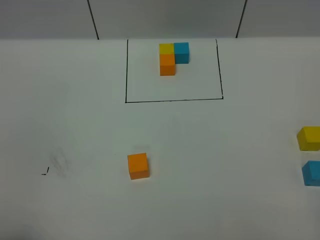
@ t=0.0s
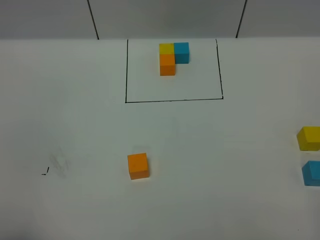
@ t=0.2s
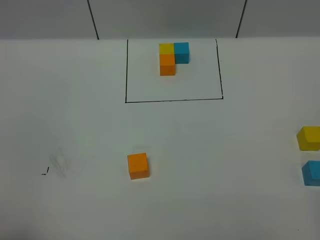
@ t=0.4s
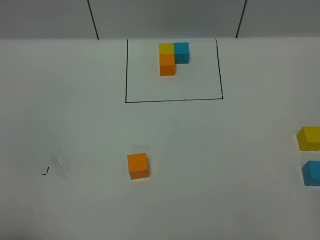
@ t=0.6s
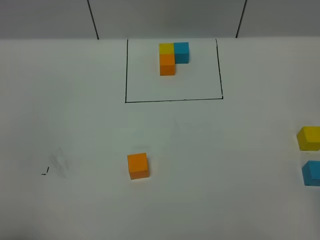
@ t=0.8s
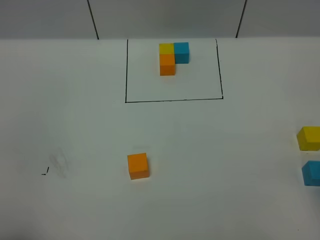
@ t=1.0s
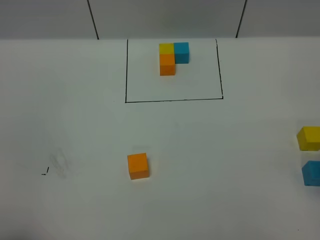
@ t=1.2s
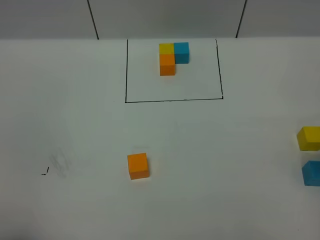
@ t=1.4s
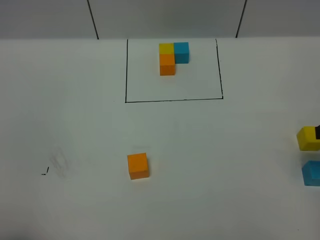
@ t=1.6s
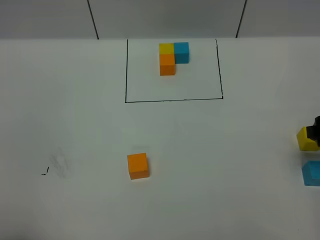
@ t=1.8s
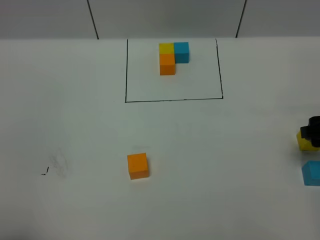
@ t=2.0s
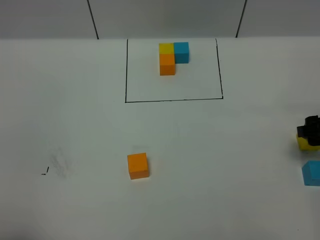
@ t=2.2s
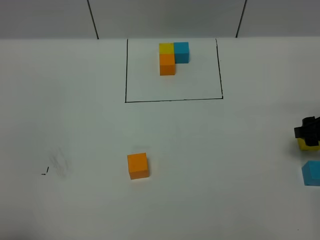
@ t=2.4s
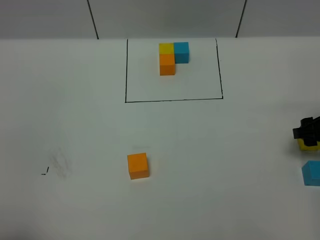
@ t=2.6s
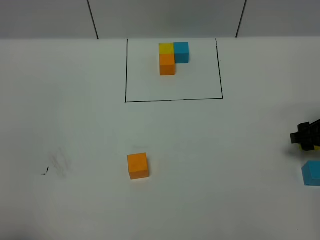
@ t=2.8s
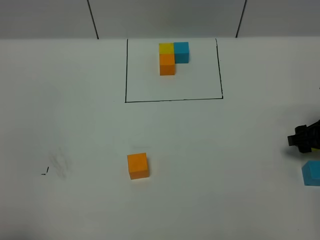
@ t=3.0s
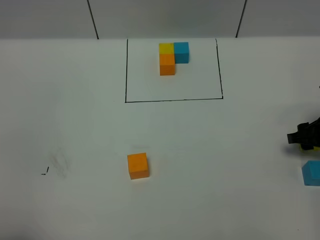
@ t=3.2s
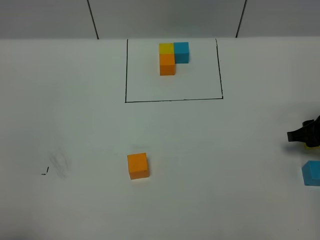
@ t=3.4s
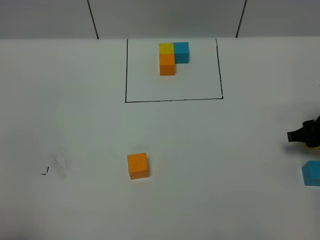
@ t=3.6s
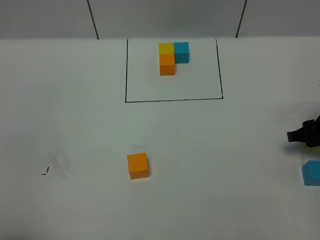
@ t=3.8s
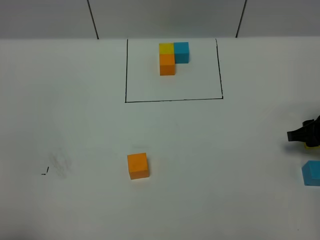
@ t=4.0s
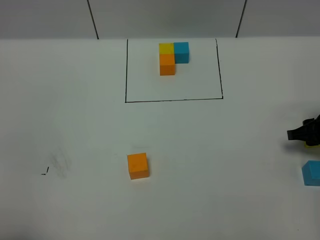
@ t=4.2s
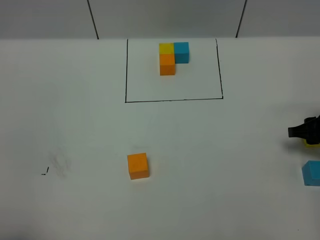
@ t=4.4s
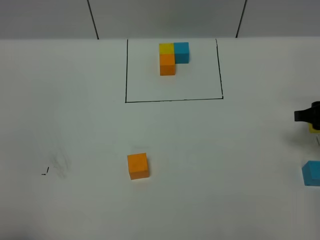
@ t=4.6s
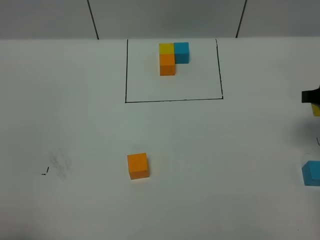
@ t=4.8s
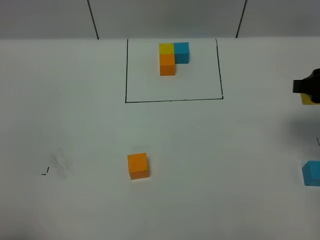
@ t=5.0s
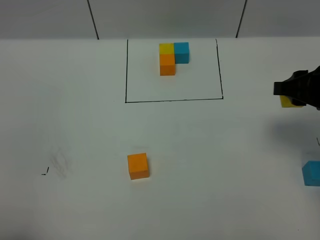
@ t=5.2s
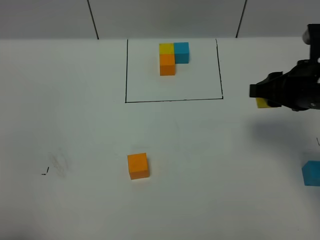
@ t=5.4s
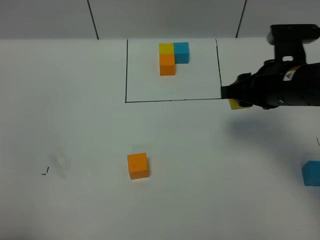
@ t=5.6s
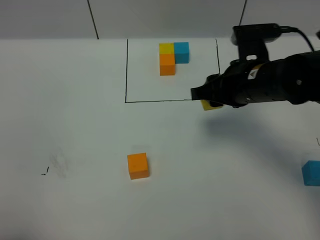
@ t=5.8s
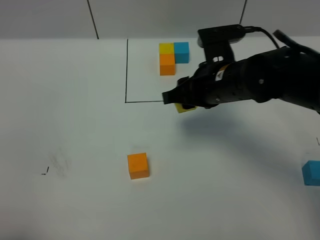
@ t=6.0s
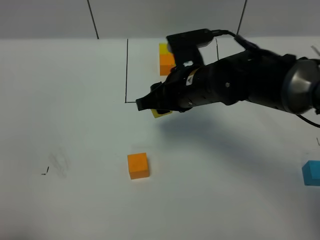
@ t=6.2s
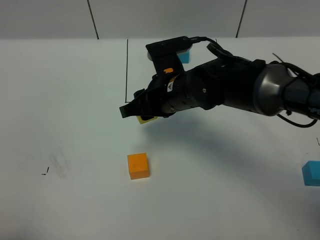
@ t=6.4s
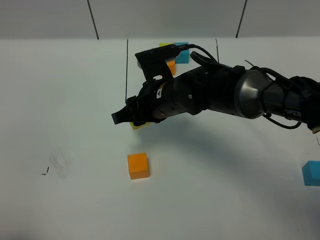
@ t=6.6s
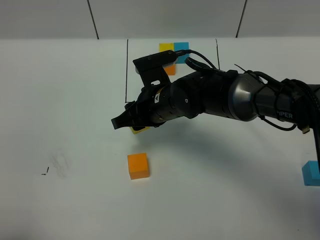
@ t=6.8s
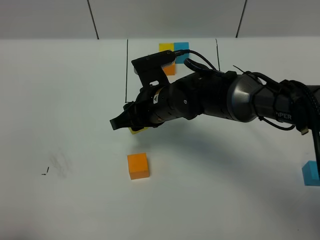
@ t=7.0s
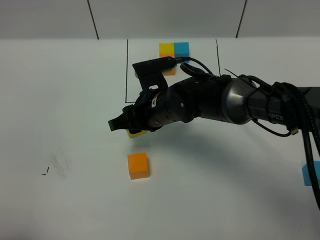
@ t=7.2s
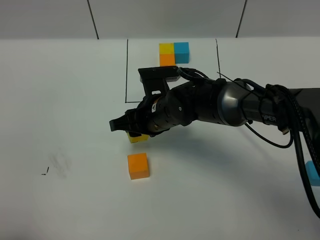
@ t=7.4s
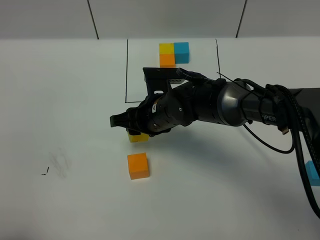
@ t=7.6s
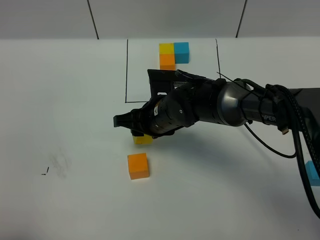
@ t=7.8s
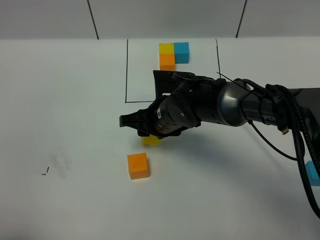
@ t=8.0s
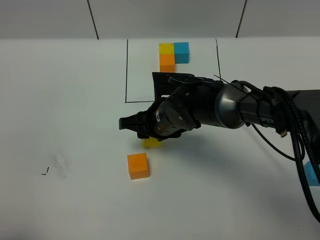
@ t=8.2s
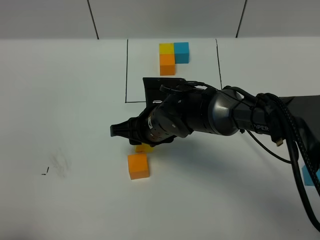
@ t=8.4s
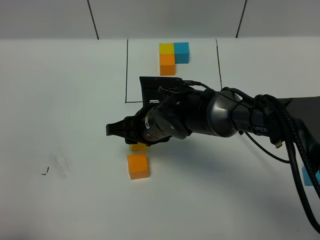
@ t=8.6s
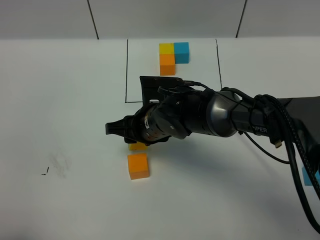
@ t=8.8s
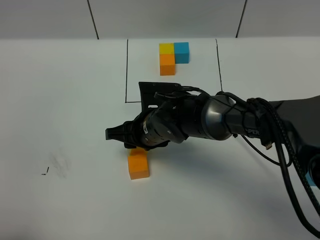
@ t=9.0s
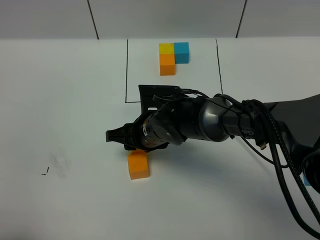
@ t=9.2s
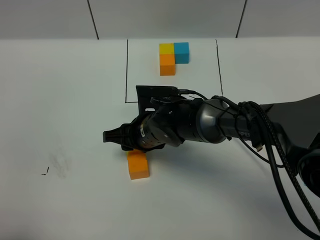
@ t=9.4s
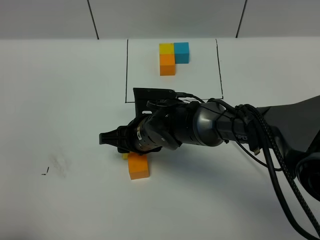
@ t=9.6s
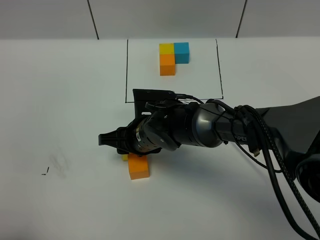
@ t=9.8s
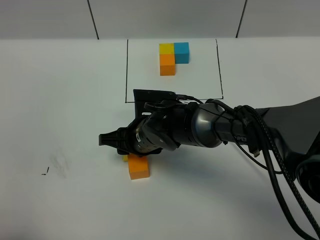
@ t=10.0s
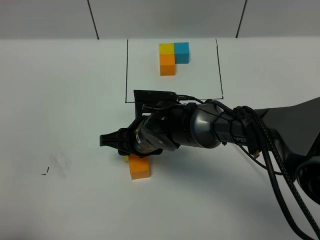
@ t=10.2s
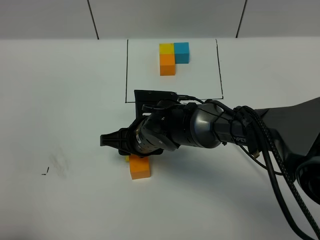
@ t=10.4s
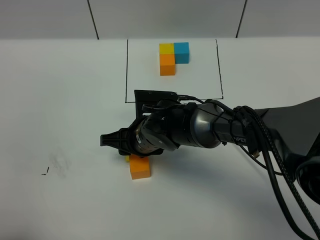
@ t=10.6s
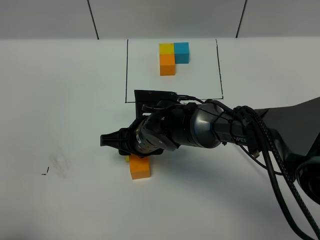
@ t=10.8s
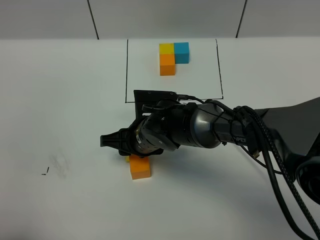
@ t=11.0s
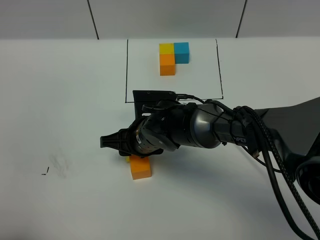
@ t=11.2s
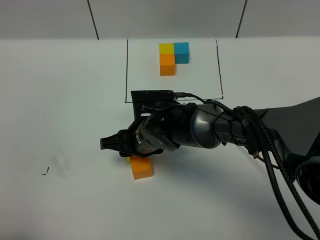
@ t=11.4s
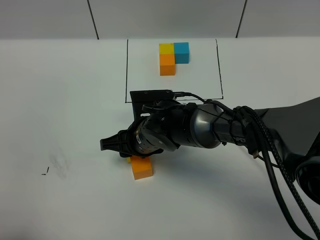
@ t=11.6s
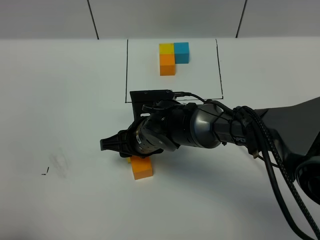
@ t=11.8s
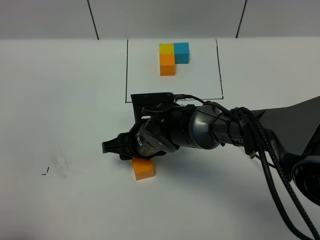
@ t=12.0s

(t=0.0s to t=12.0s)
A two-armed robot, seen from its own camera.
Task of the whole recording: According to the building block template in front, assemble the scattered blocks together.
t=1.6s - t=3.0s: The right gripper moves downward and forward, approximately 15 cm.
t=3.0s - t=4.4s: The right gripper closes up.
t=4.4s - t=6.0s: The right gripper moves to the left and upward, about 25 cm.
t=6.0s - t=7.6s: The right gripper travels to the left and downward by roughly 10 cm.
t=7.6s - t=12.0s: There are only small adjustments of the grippers.

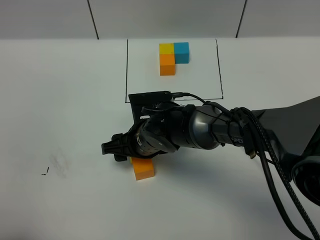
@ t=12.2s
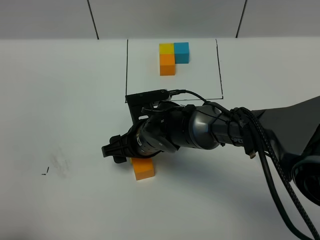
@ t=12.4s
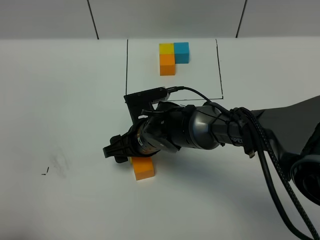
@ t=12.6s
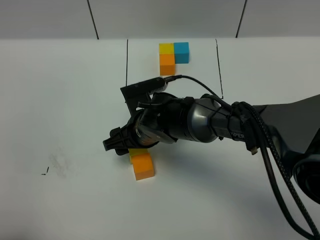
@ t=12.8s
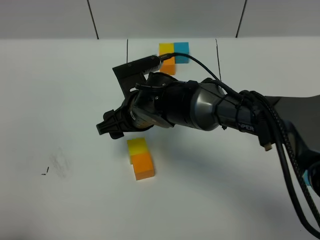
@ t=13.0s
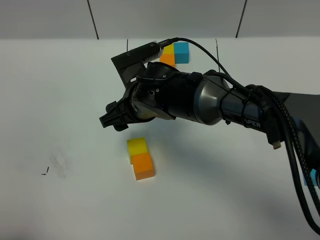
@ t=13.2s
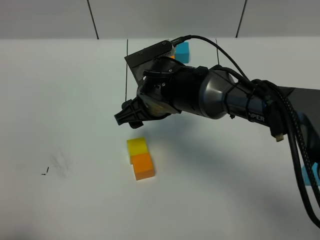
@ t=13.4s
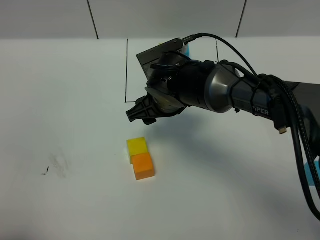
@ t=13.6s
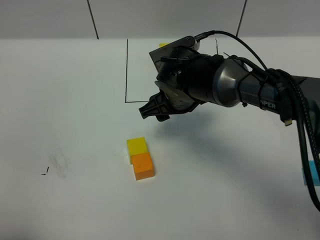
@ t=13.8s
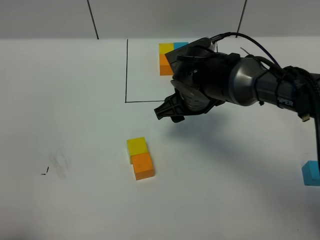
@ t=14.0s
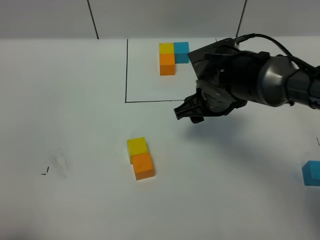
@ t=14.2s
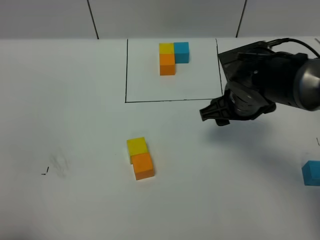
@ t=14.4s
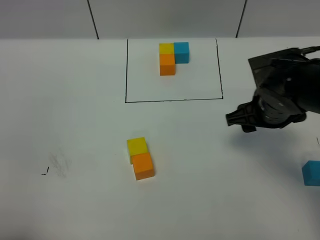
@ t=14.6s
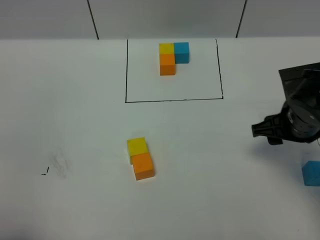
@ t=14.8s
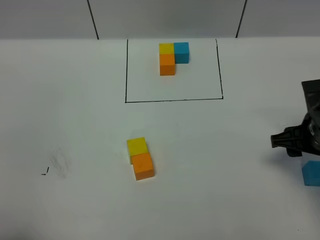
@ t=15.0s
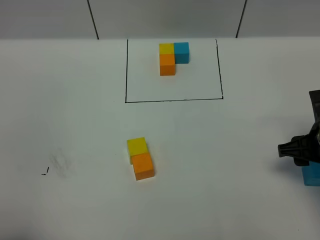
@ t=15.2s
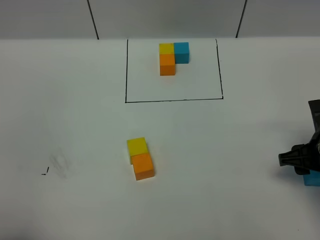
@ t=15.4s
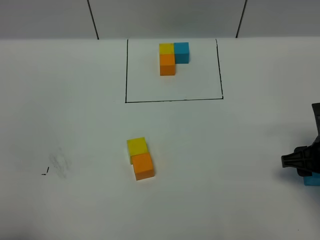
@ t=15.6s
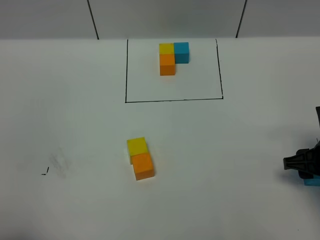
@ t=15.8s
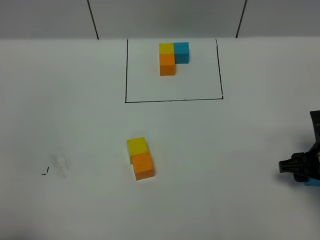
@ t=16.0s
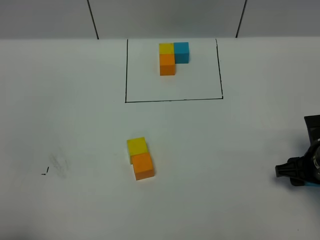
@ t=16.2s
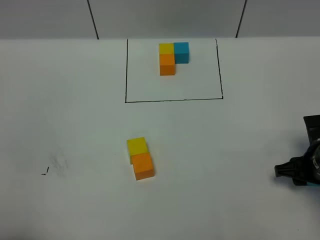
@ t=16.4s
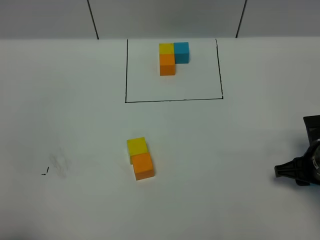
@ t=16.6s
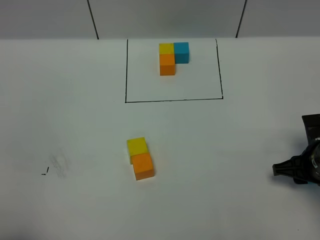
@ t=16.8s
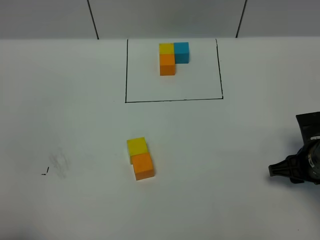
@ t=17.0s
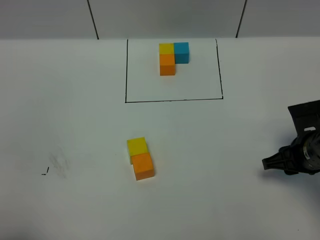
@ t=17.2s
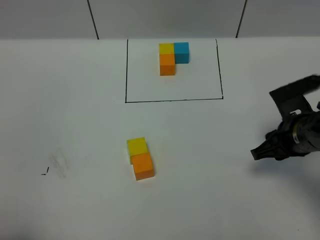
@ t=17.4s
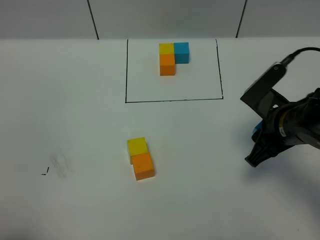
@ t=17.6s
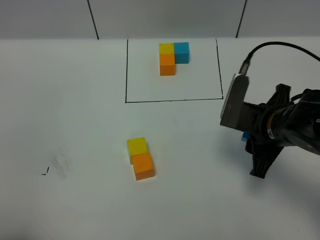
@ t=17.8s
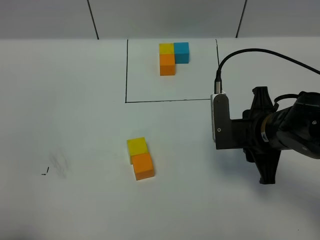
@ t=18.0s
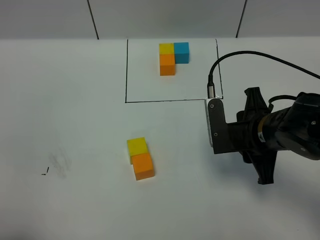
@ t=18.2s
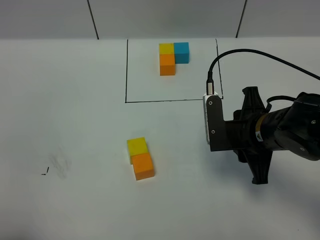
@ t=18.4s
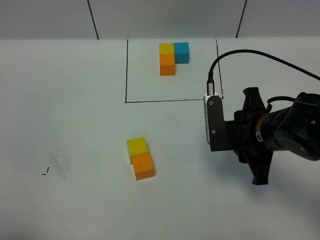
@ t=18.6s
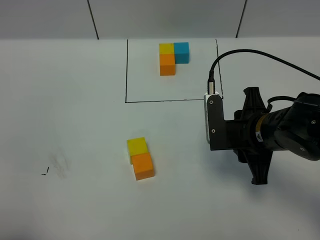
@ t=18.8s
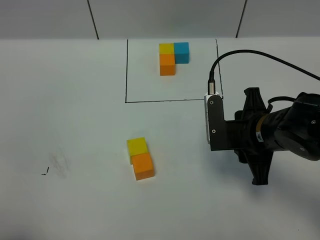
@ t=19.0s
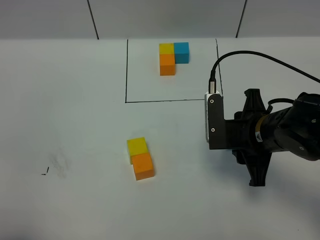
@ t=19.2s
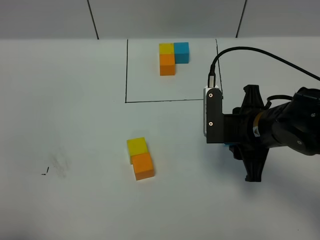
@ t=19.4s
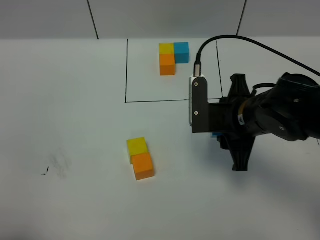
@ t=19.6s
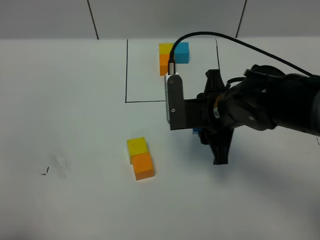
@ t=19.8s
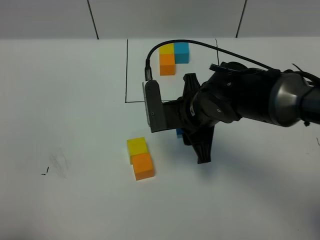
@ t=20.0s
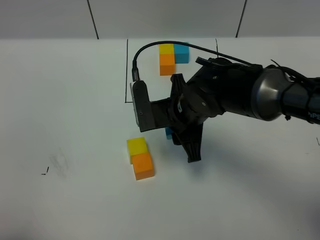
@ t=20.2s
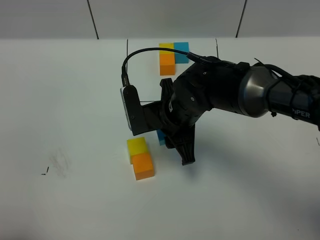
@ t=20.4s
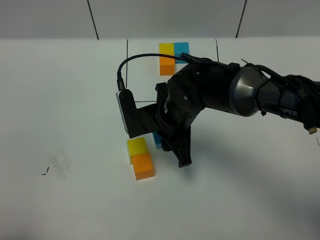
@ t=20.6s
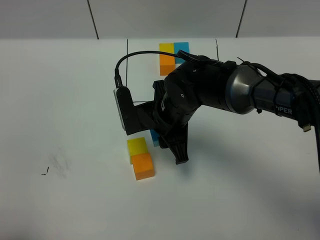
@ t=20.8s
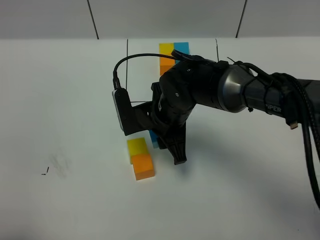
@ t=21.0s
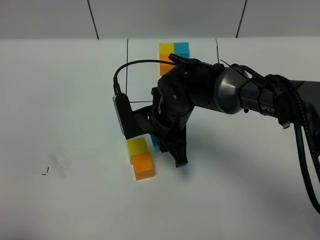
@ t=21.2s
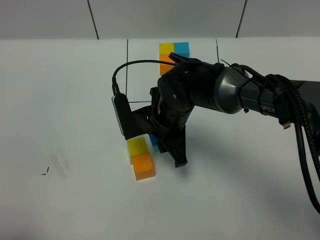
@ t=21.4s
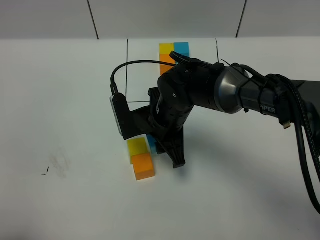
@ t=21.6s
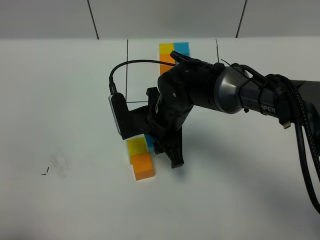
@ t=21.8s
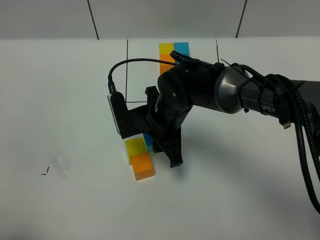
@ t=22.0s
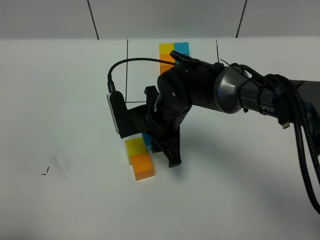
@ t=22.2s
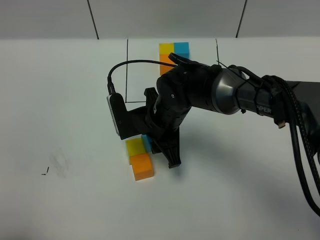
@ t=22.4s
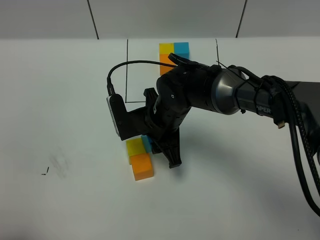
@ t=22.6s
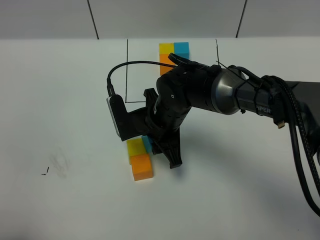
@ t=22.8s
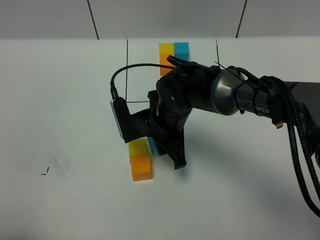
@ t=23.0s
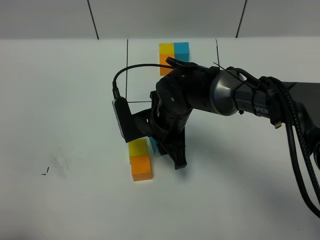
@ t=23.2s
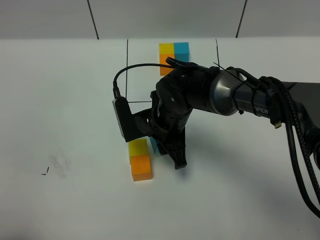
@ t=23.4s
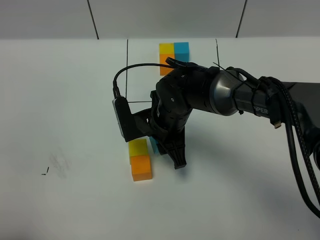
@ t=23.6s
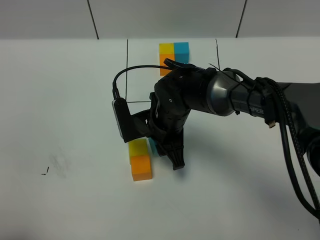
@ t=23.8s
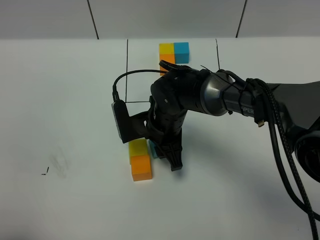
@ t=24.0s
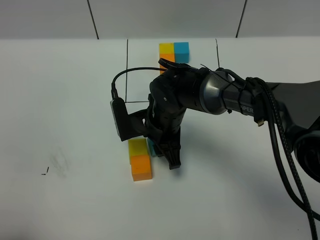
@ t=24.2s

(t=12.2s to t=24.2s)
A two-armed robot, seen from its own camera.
Task of the whole recording: According to the building block template in front, assemble the scattered blocks together.
t=12.2s - t=13.8s: The right gripper travels upward, to the right and forward by about 10 cm.
t=13.8s - t=15.2s: The right gripper is displaced to the right and backward by some 25 cm.
t=15.2s - t=16.6s: The right gripper is displaced downward by about 5 cm.
t=16.6s - t=18.2s: The right gripper goes about 15 cm to the left and upward.
t=18.2s - t=19.8s: The right gripper is displaced to the left by about 5 cm.
t=19.8s - t=21.2s: The right gripper moves to the left, about 10 cm.
t=21.2s - t=22.6s: Both grippers stay put.
t=22.6s - t=24.2s: The grippers make only small movements.
